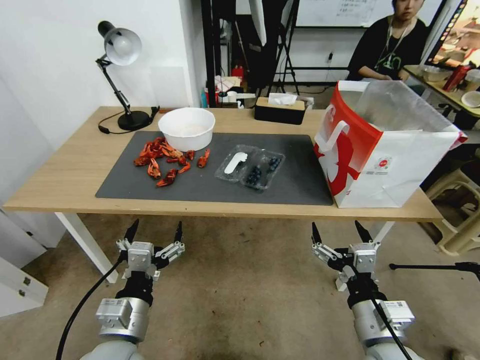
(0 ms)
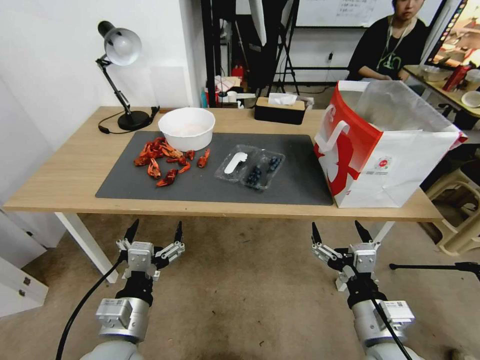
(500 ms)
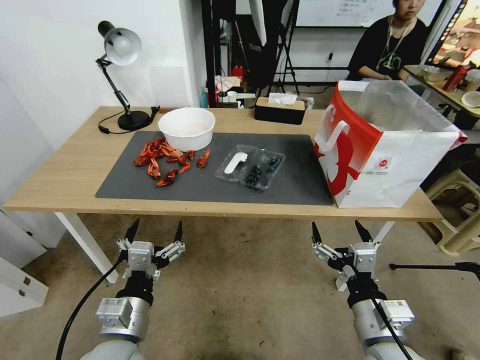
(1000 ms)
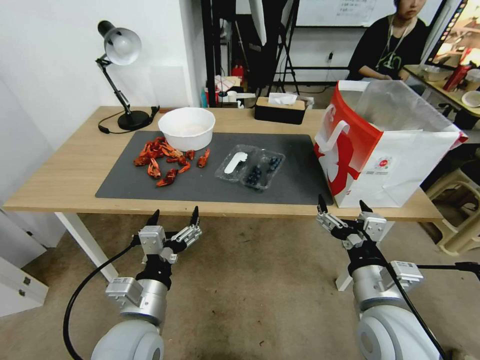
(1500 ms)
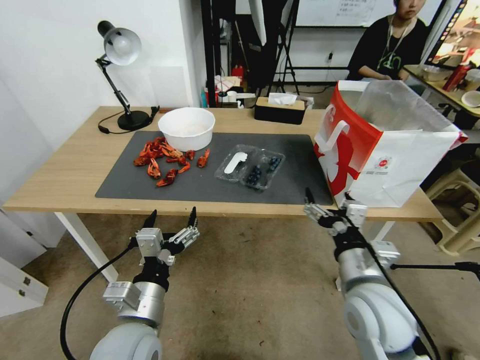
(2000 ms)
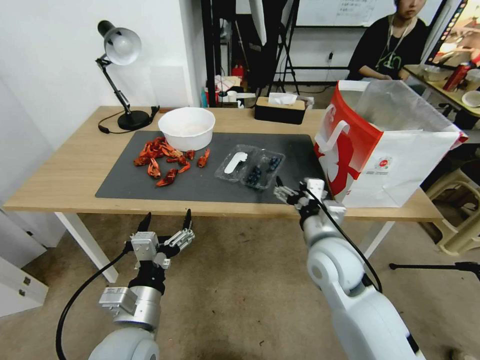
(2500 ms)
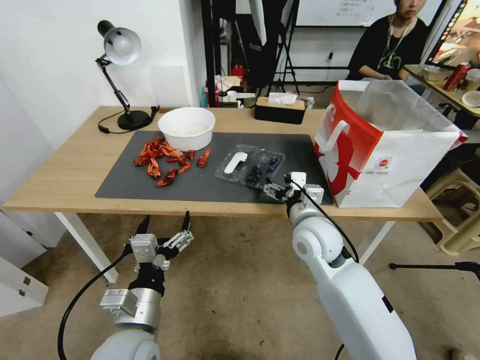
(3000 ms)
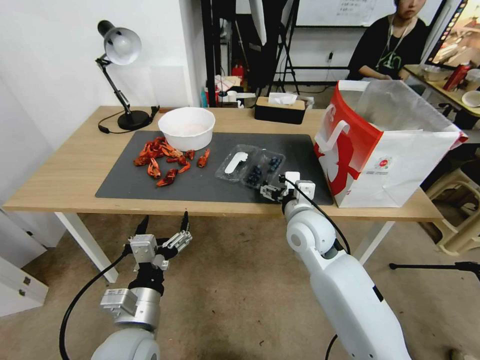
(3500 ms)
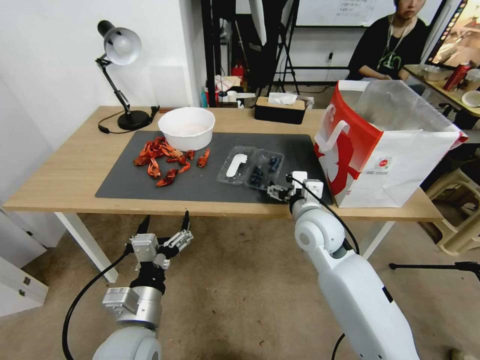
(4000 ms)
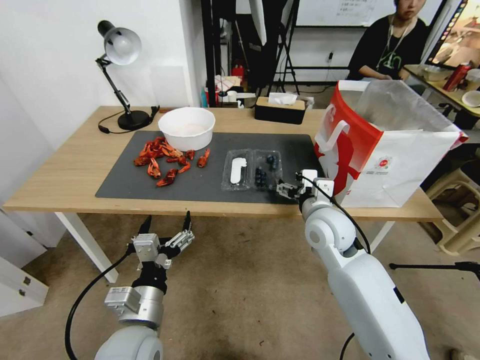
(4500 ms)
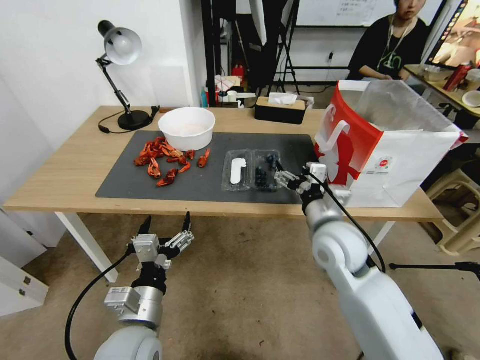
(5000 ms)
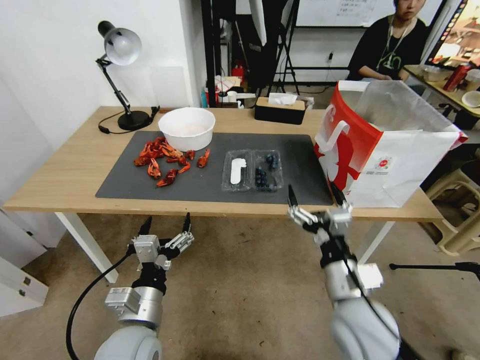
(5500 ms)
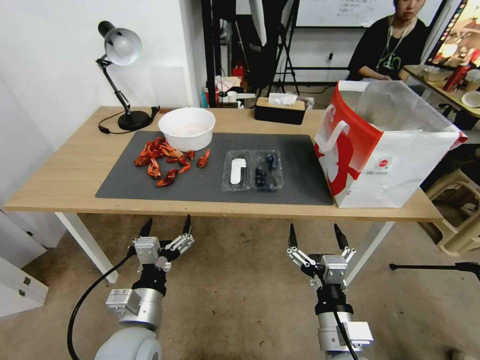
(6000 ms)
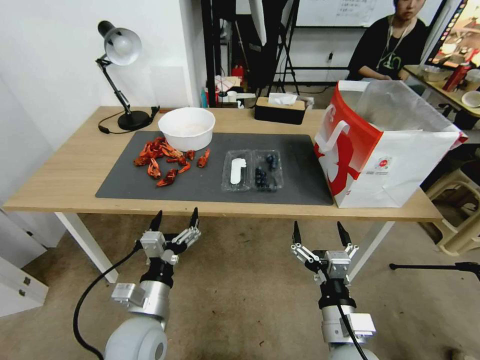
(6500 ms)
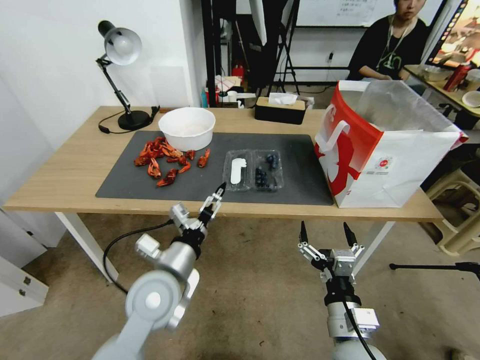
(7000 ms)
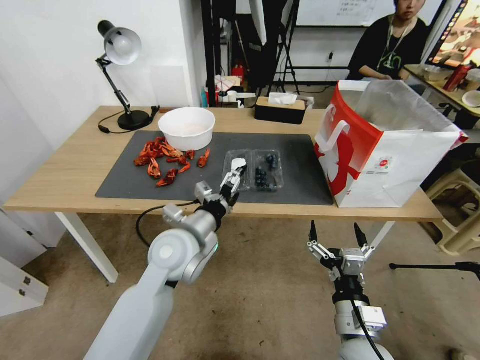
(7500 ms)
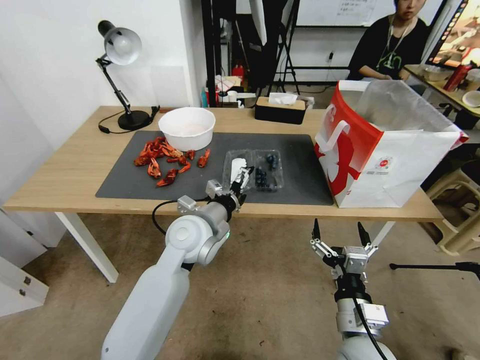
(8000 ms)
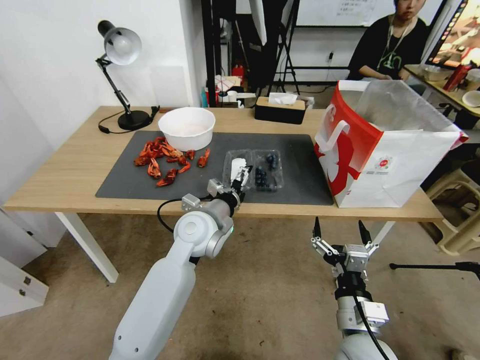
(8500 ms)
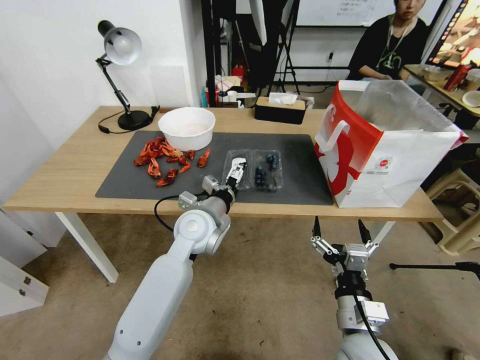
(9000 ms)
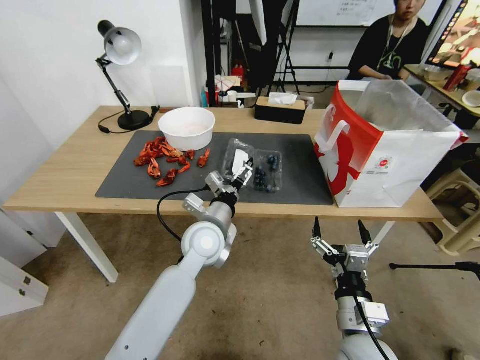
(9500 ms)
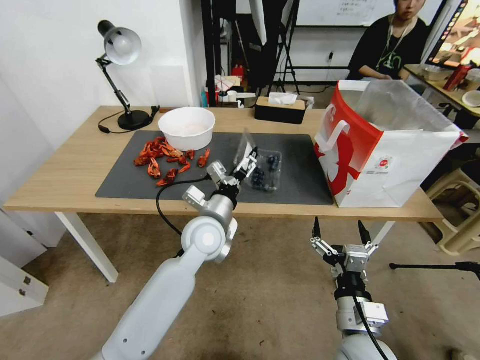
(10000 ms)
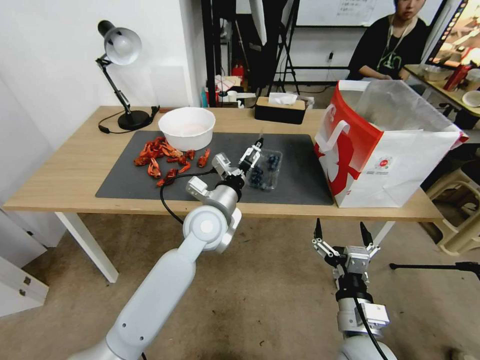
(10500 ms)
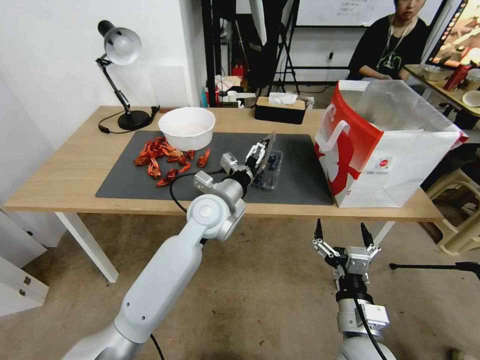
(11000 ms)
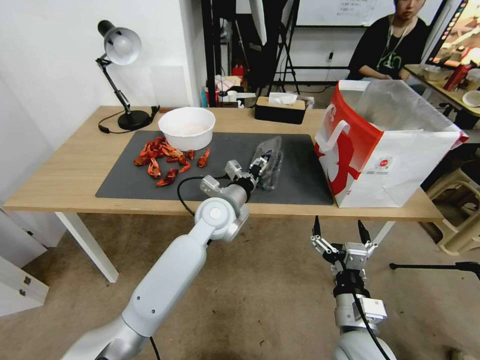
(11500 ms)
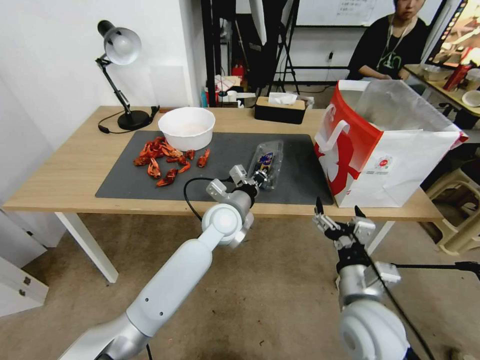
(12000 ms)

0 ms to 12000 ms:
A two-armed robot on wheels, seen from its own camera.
Task of the whole recording: Close the takeout container lid, then place the container into the takeout bag.
2000 ms to 4000 ms: The right gripper is displaced forward by roughly 15 cm.
4000 ms to 6000 ms: The right gripper goes about 25 cm backward.
6000 ms to 8000 ms: The left gripper shifts approximately 20 cm forward and to the right. Meanwhile the right gripper moves some 5 cm.
10000 ms to 12000 ms: The left gripper moves some 5 cm, and closes its fingers. Meanwhile the right gripper shifts by some 5 cm.

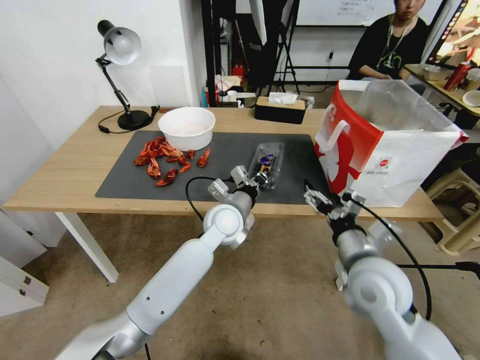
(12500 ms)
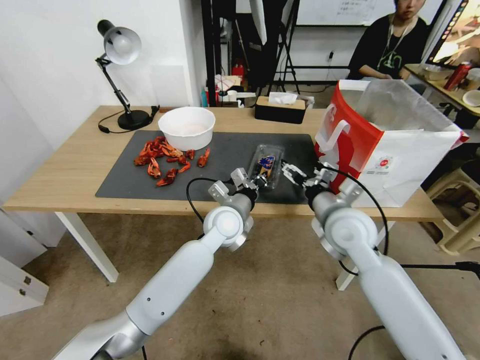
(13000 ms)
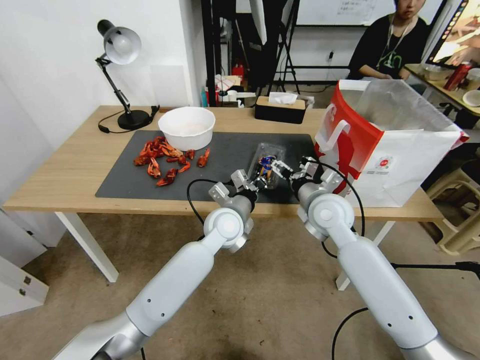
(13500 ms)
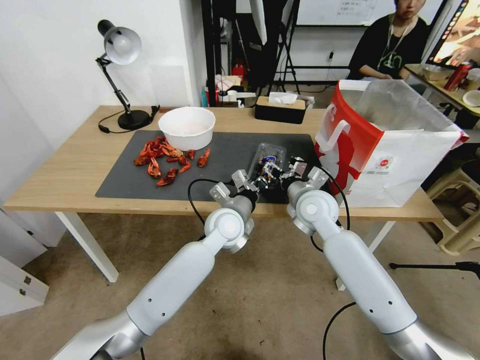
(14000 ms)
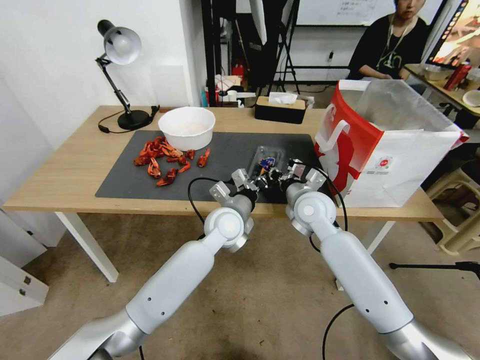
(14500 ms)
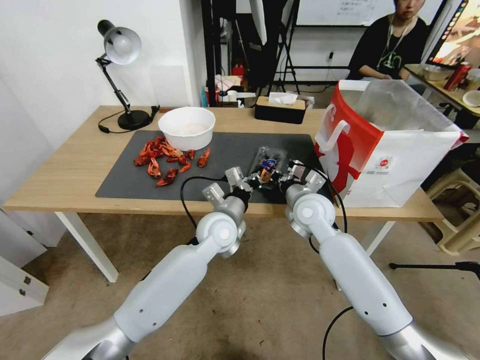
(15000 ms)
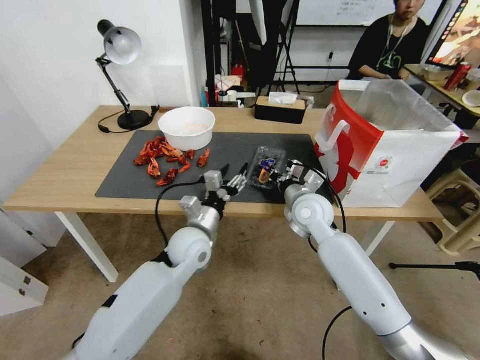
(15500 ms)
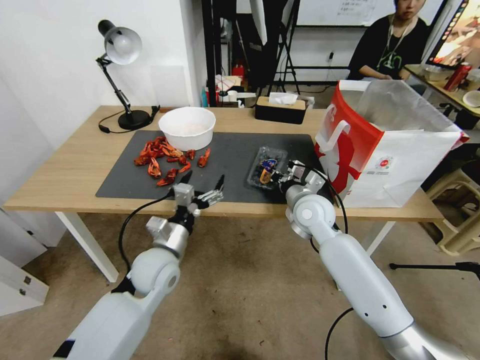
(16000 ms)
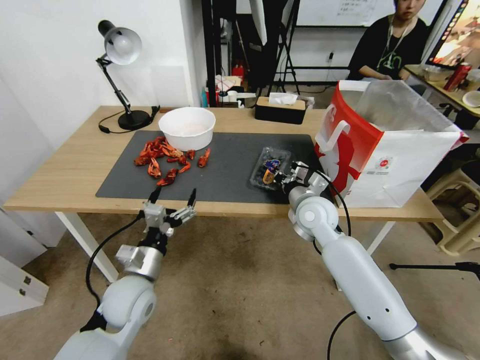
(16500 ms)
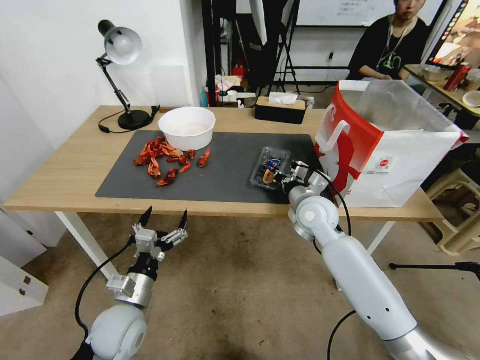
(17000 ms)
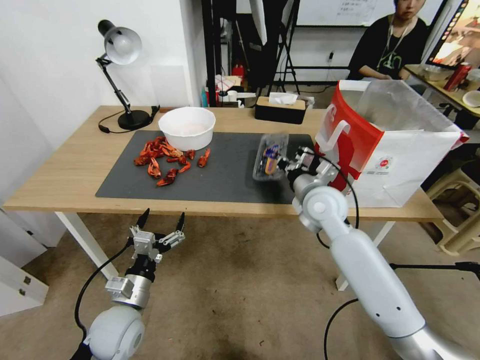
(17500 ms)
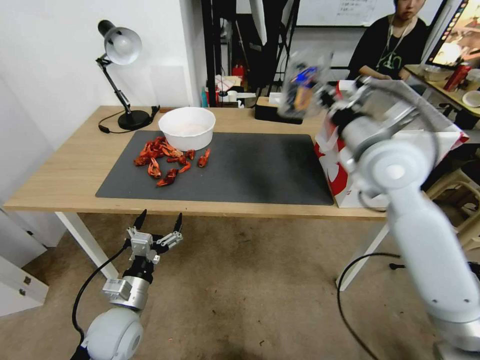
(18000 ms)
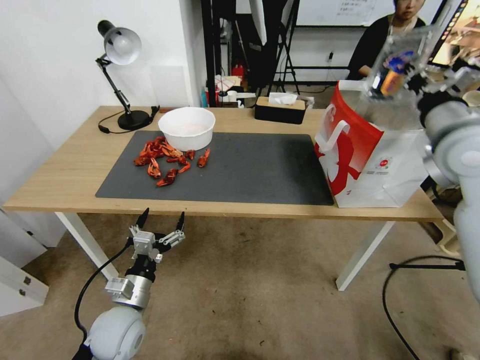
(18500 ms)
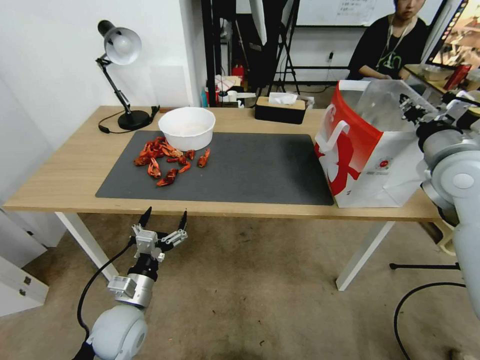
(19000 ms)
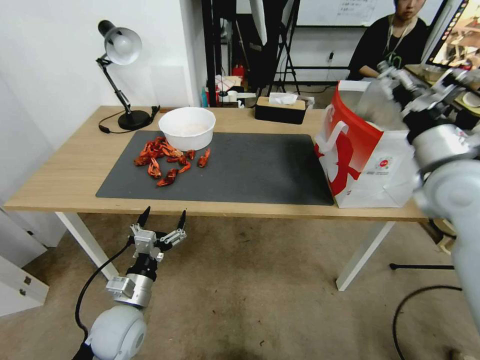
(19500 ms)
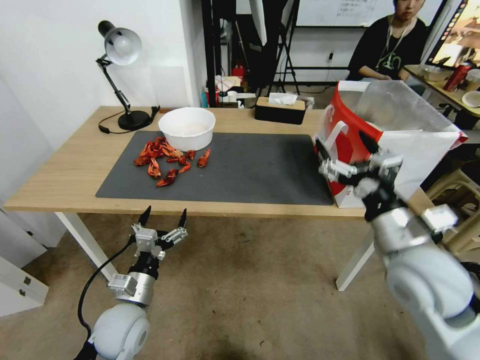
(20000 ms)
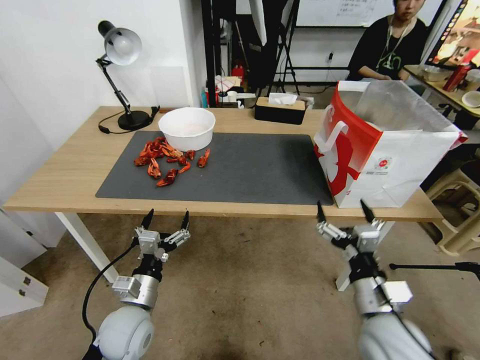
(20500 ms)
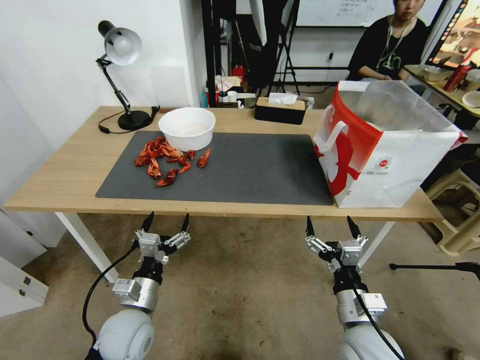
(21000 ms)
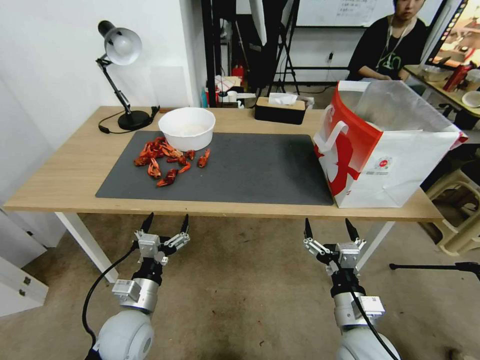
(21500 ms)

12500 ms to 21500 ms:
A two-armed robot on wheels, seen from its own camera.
Task of the whole recording: Close the takeout container lid, then place the container into the takeout bag.
12500 ms to 14500 ms: The right gripper goes about 15 cm forward, and closes.
14500 ms to 17000 ms: The left gripper is displaced to the left and backward by some 30 cm, and opens.
17000 ms to 19500 ms: The right gripper heads upward, to the right and backward, covering approximately 25 cm, and opens.
19500 ms to 21500 ms: The right gripper goes about 35 cm downward, backward and to the left.

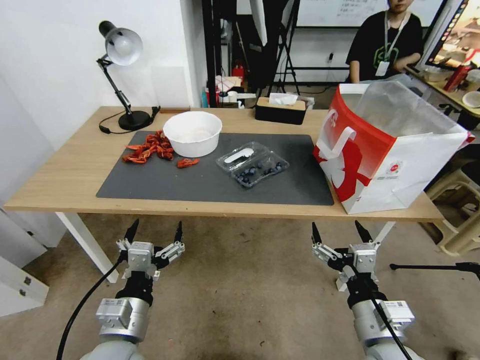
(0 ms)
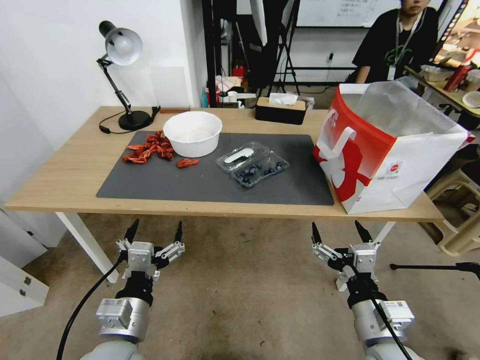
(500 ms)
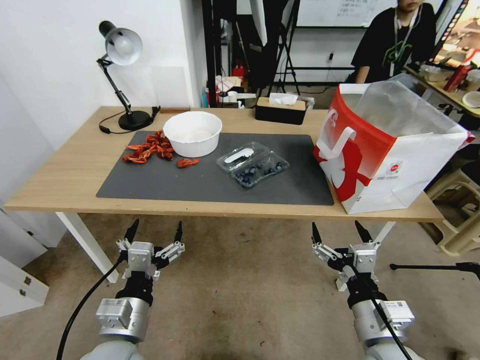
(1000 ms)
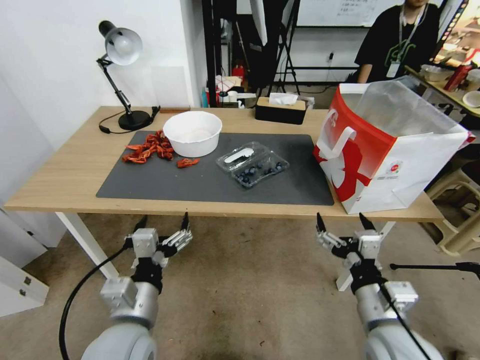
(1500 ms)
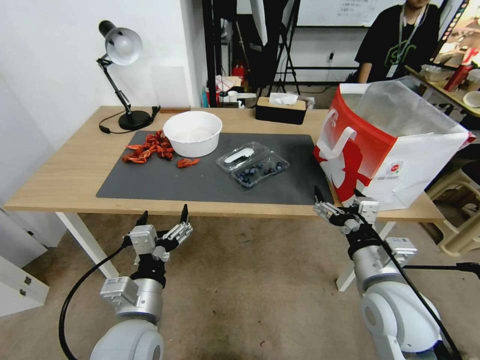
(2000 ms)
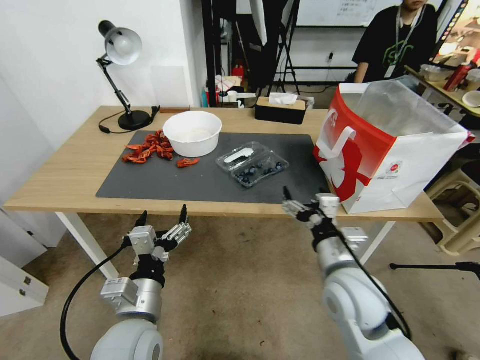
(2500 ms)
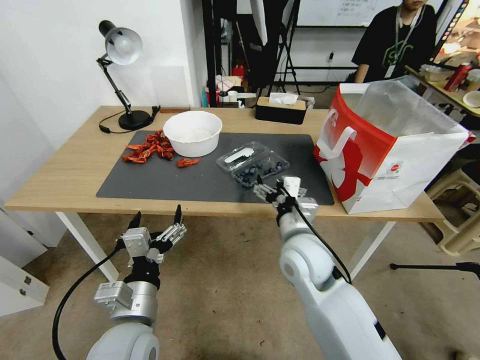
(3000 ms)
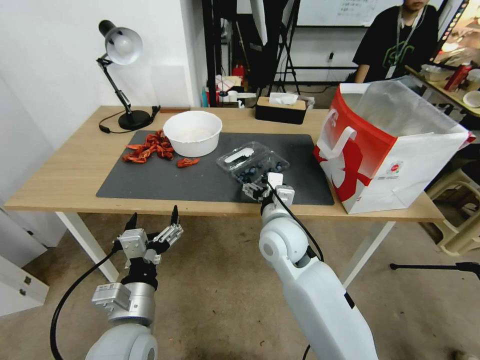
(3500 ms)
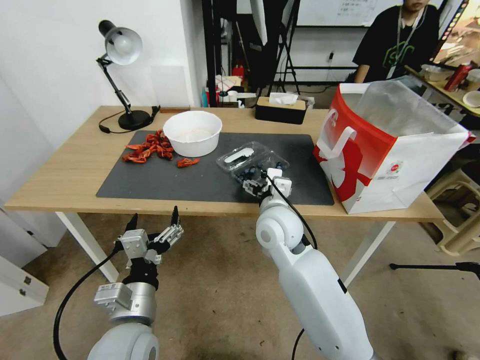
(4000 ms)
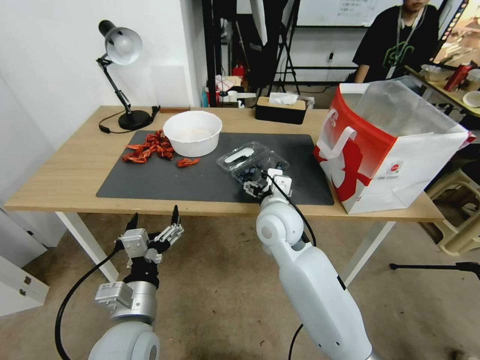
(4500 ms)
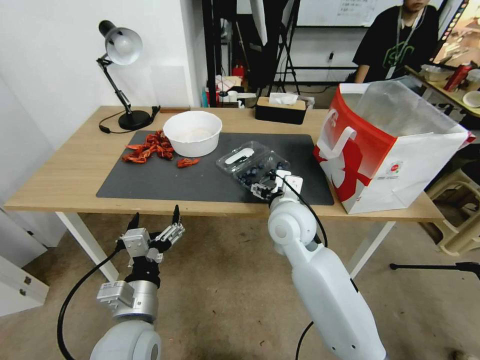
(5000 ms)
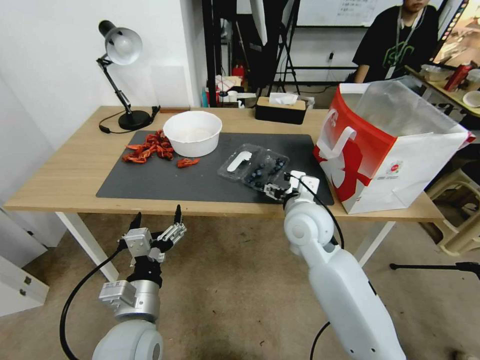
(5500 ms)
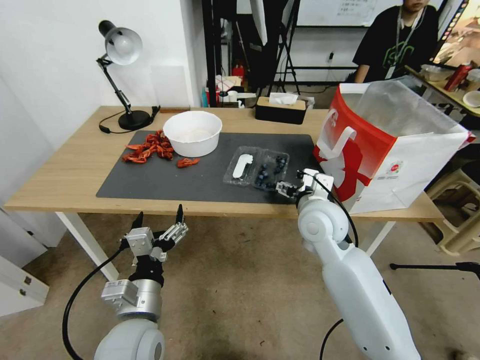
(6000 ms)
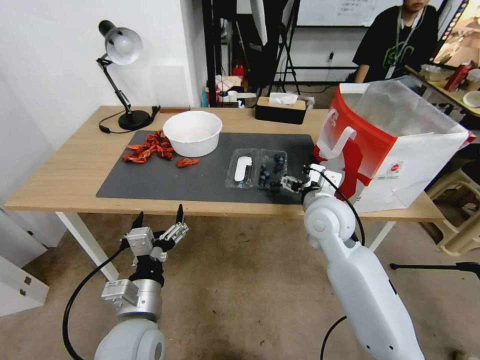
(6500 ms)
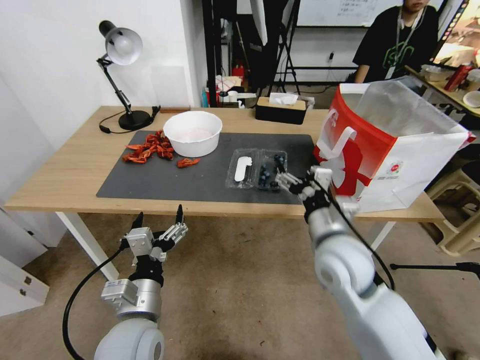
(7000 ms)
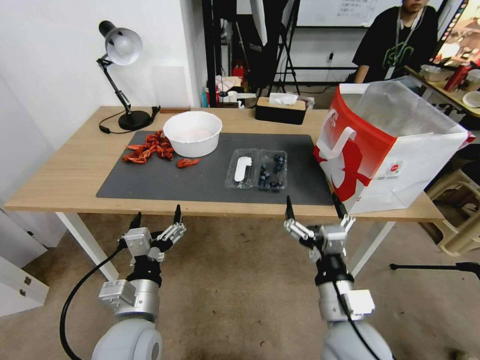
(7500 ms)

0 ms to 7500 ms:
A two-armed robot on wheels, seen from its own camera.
Task of the whole recording: Close the takeout container lid, then place the container into the takeout bag.
2000 ms to 4000 ms: The right gripper moves to the left and forward, roughly 25 cm.
4000 ms to 5500 ms: The right gripper heads to the right, covering approximately 5 cm.
5500 ms to 7500 ms: The right gripper shifts approximately 20 cm backward.
